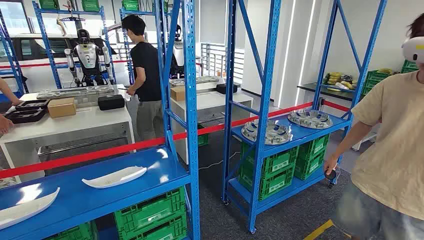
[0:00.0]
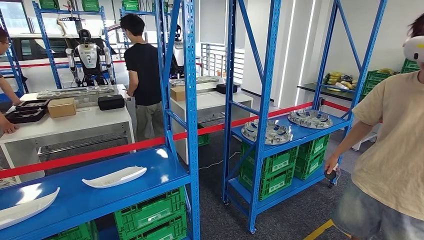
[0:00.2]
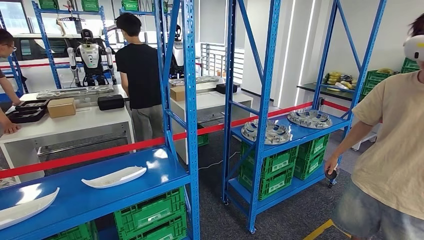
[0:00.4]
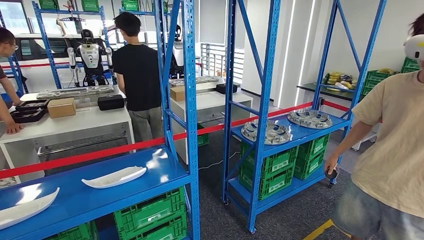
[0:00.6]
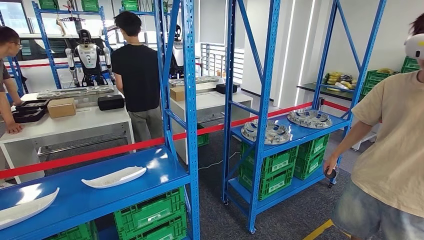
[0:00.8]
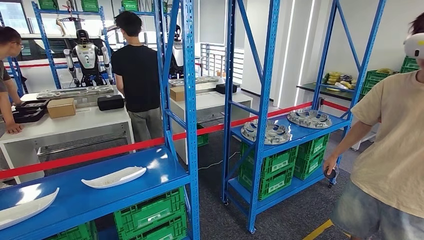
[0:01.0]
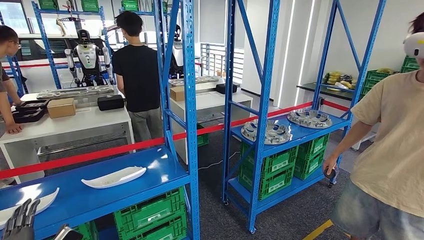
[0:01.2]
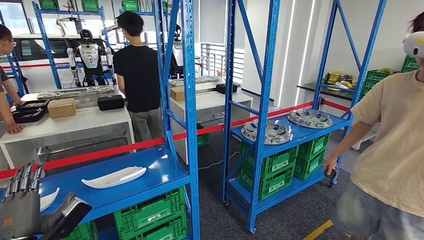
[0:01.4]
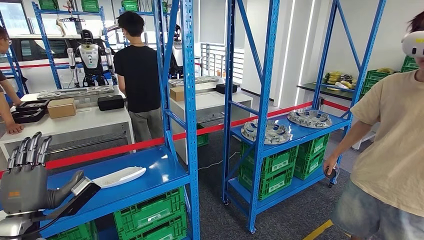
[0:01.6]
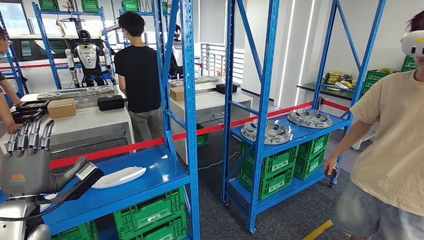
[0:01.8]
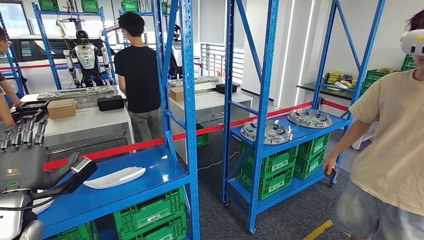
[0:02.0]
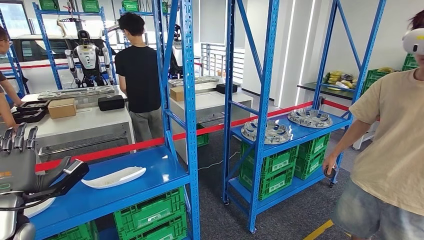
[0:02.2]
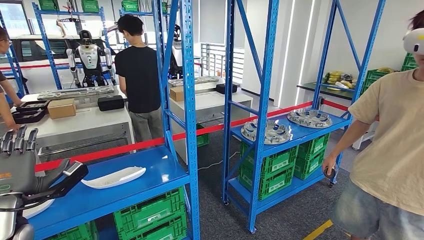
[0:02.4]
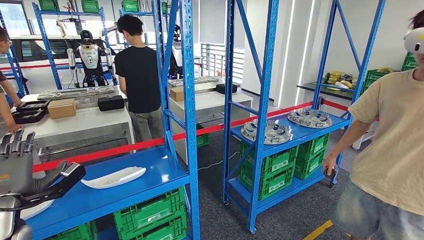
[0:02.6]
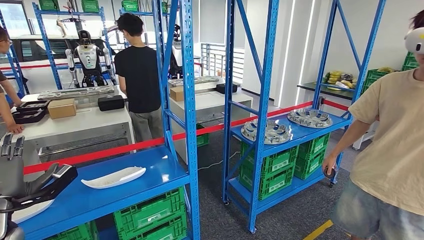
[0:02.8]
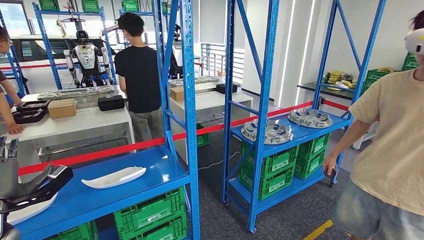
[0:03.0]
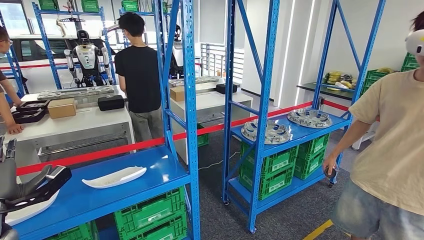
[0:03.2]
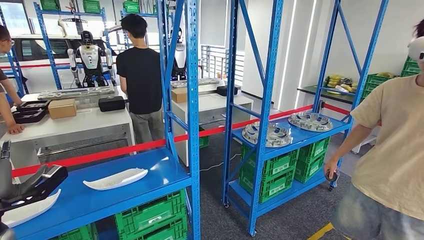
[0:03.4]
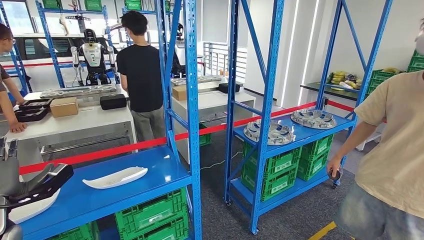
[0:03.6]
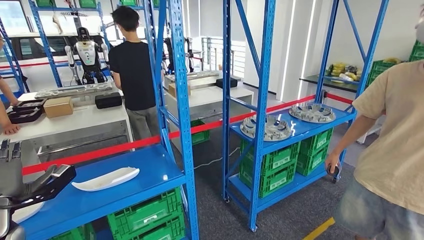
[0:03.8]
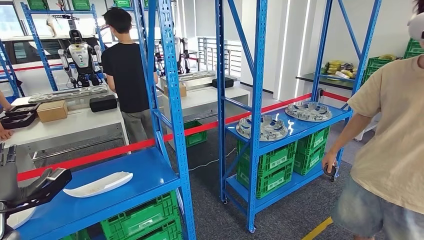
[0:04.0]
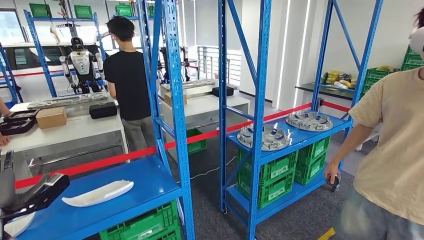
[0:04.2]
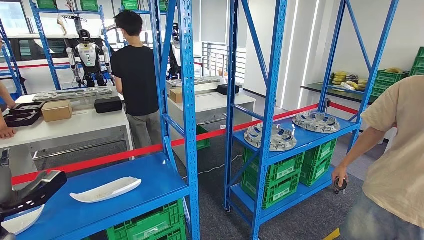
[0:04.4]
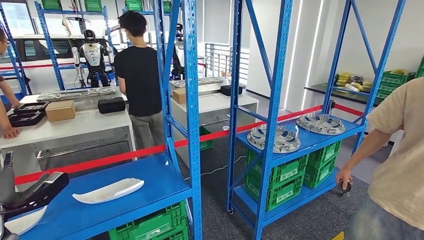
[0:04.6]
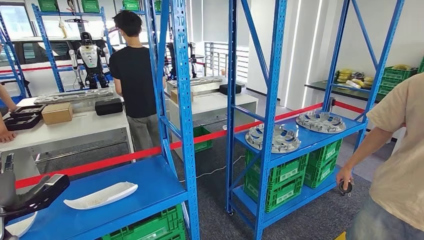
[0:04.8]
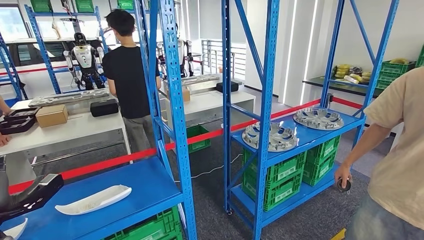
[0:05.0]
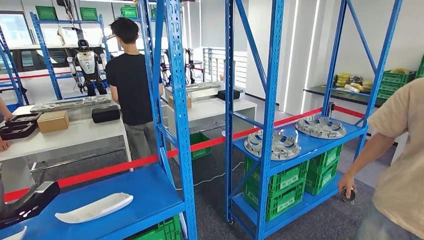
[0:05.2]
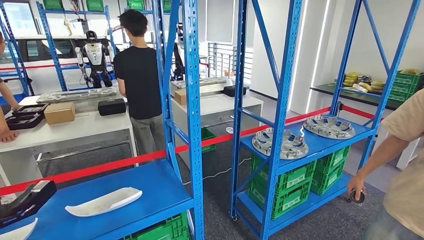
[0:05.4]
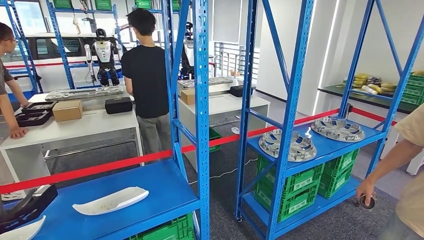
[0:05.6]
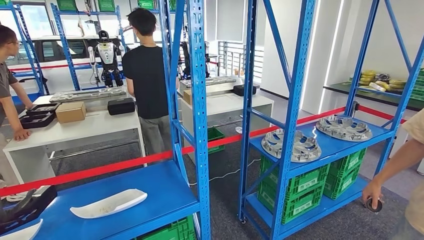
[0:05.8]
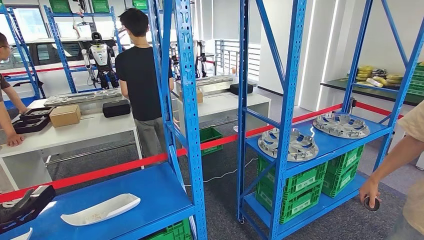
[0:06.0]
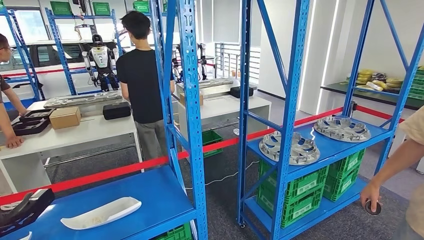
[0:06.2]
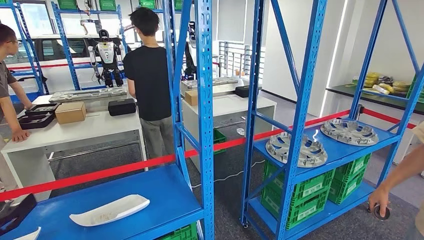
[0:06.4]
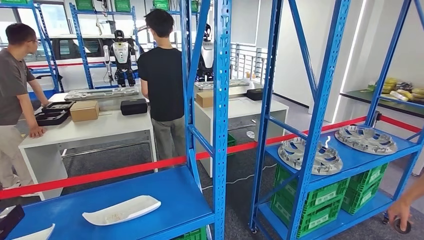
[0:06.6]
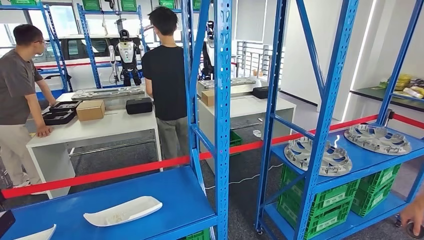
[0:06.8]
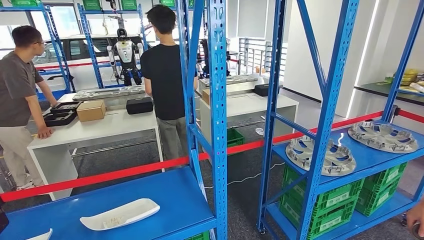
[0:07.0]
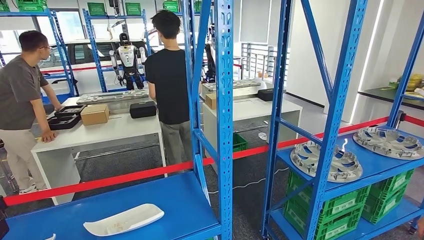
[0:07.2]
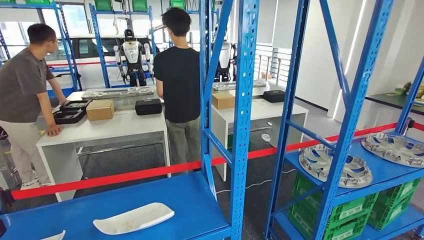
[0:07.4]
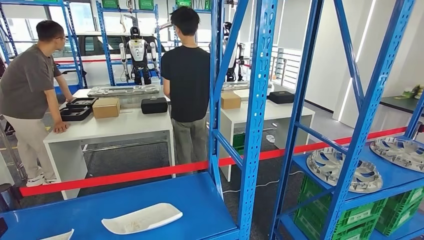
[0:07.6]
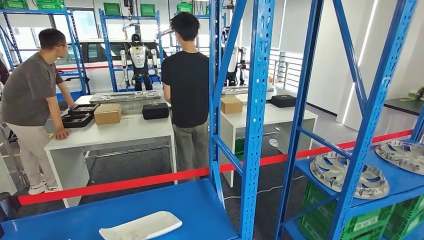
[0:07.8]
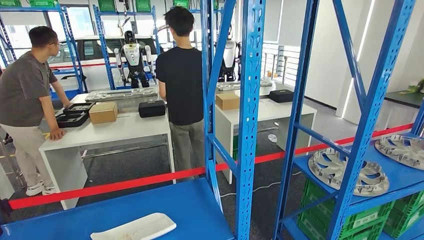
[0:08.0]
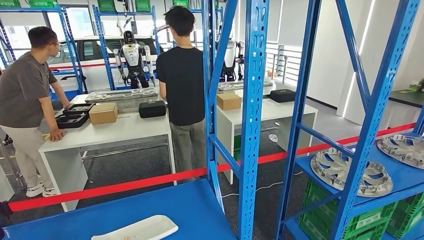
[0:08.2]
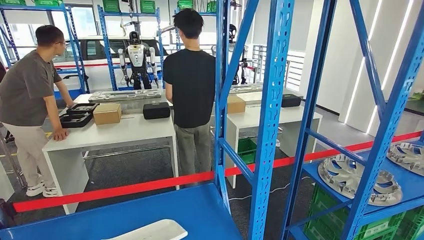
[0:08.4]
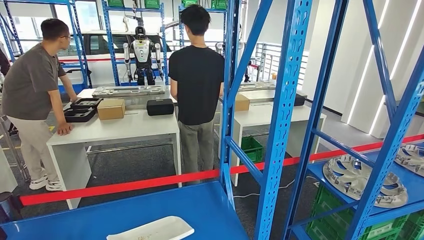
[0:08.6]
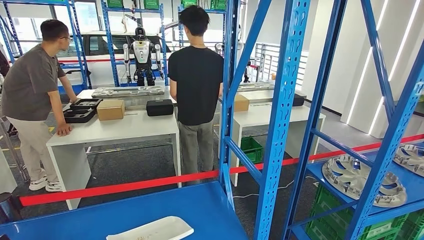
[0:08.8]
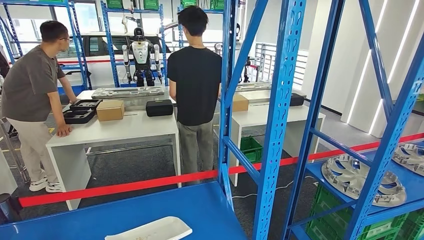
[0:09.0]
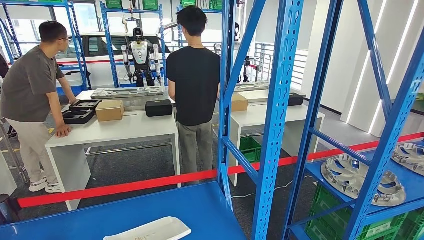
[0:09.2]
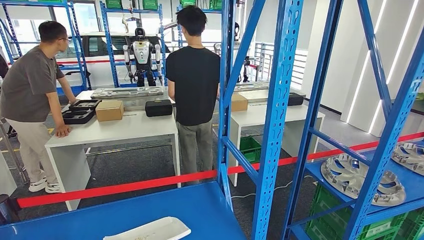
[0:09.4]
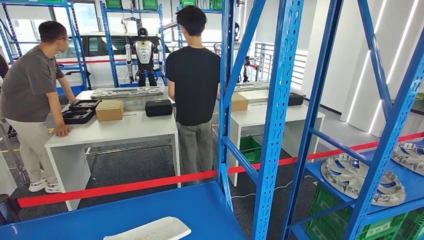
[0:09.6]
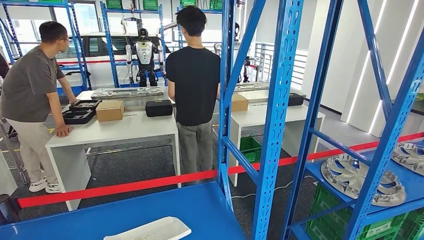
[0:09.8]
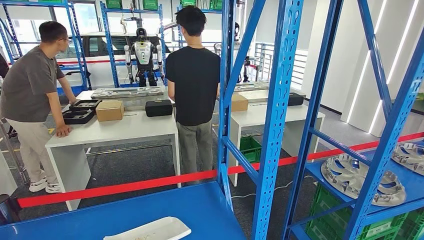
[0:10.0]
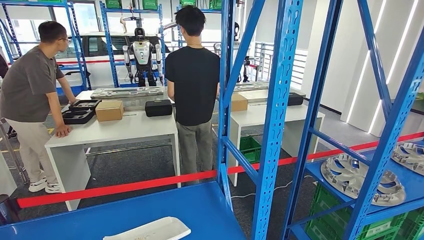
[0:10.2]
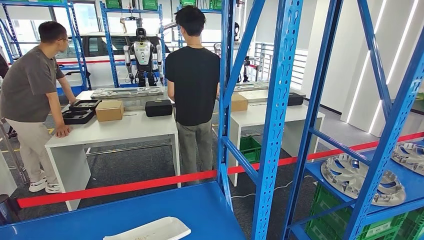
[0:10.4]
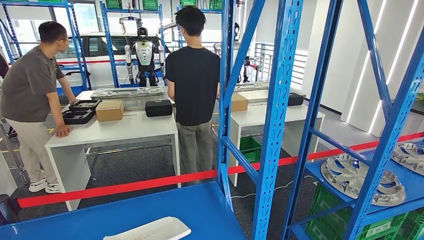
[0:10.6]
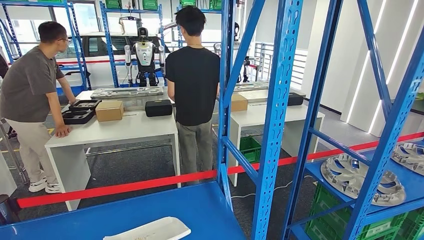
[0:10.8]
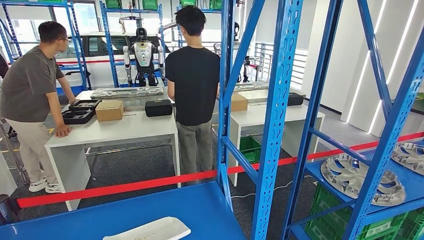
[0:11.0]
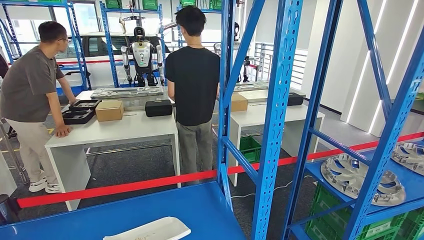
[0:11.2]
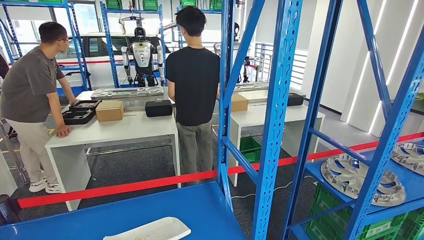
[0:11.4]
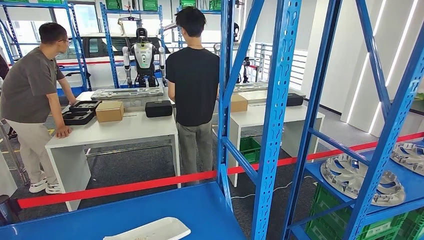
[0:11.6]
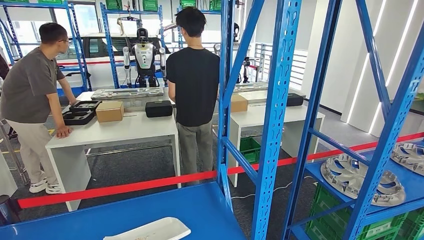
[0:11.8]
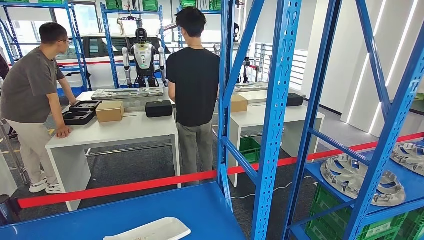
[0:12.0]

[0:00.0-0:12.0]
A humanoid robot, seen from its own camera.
0:01.6 to 0:03.0: The left hand moves to the left, some 5 cm.
0:09.0 to 0:10.4: The left hand shifts approximately 10 cm to the right and downward.
0:10.4 to 0:12.0: The hands make only small movements.

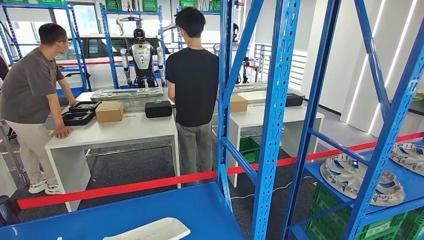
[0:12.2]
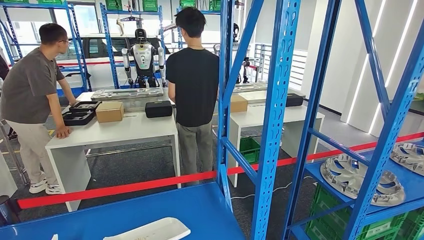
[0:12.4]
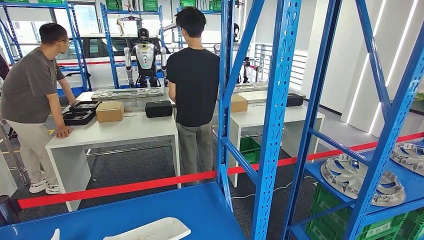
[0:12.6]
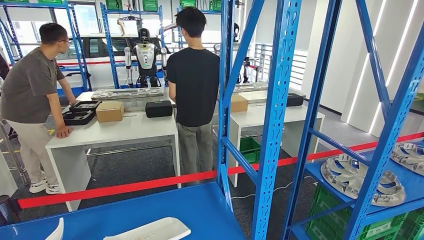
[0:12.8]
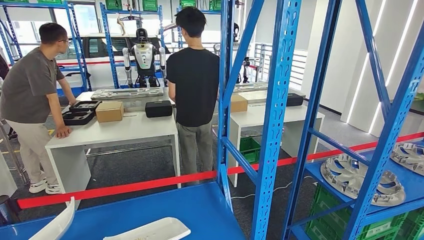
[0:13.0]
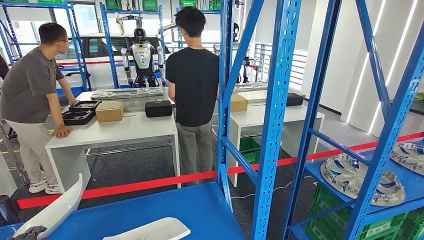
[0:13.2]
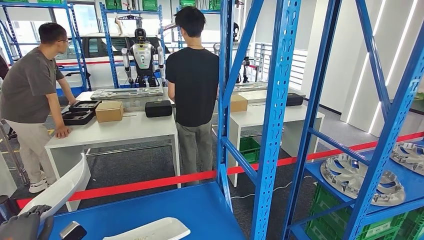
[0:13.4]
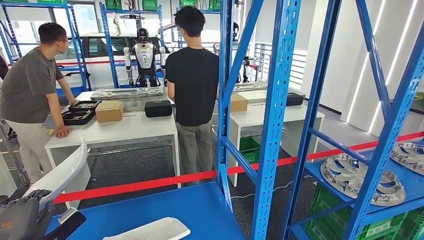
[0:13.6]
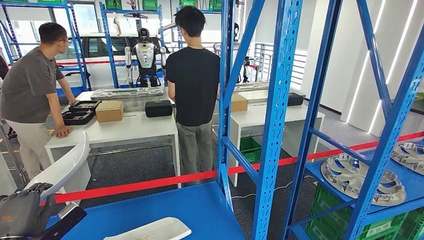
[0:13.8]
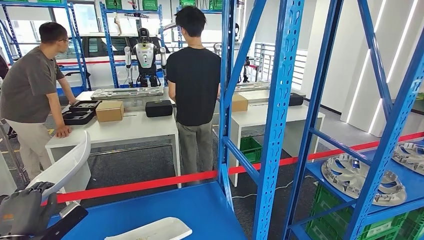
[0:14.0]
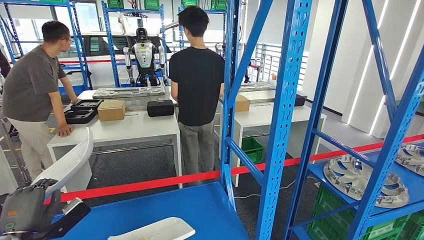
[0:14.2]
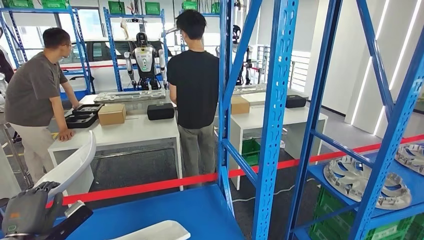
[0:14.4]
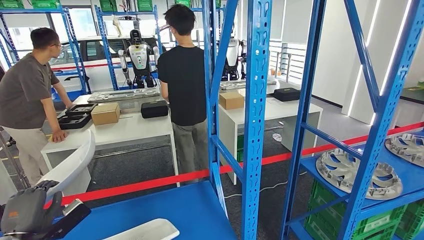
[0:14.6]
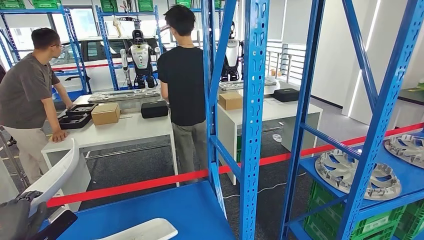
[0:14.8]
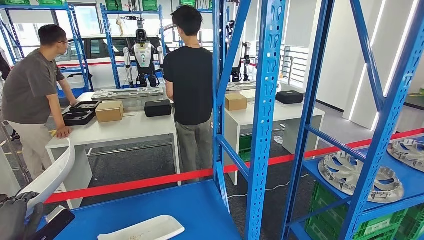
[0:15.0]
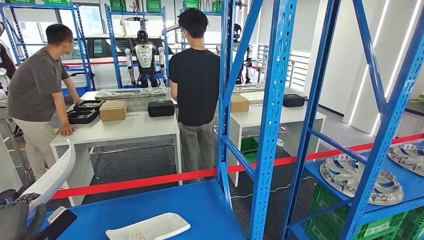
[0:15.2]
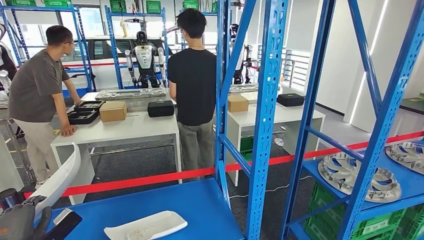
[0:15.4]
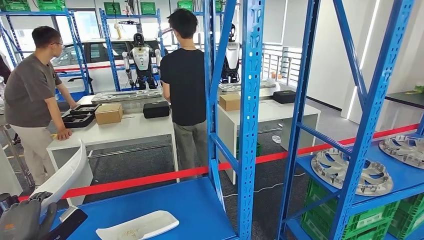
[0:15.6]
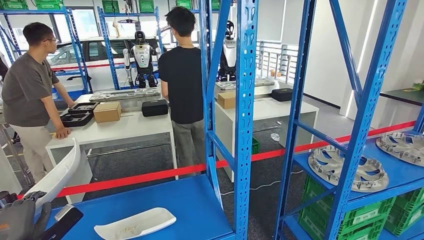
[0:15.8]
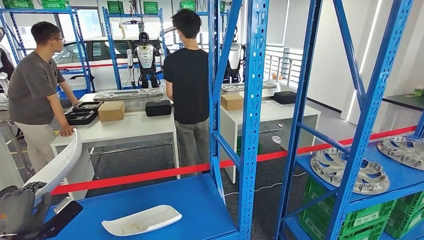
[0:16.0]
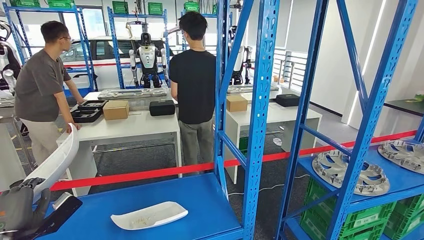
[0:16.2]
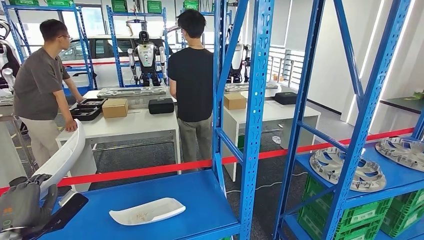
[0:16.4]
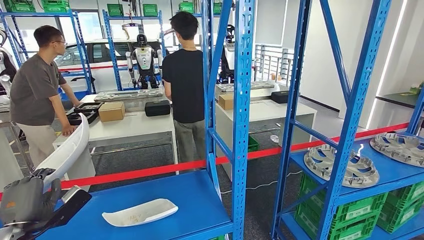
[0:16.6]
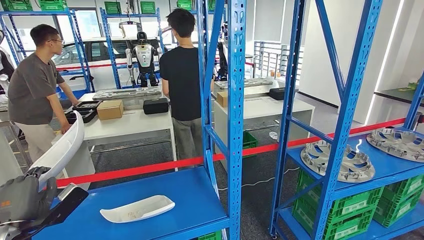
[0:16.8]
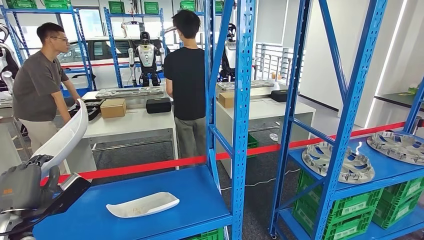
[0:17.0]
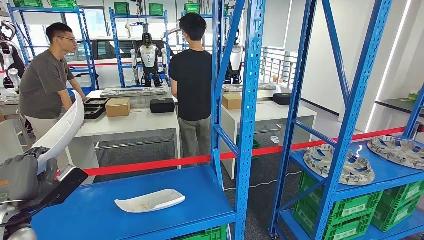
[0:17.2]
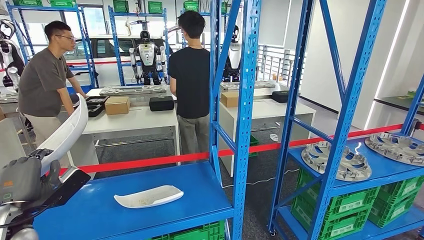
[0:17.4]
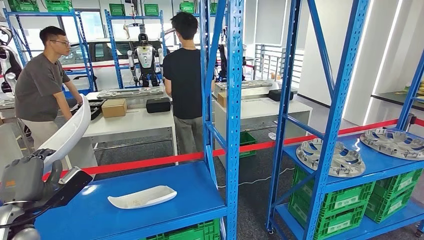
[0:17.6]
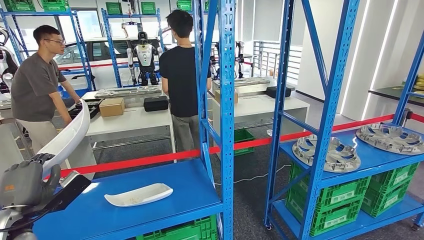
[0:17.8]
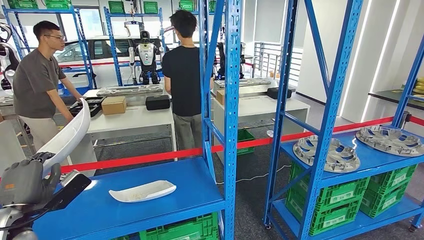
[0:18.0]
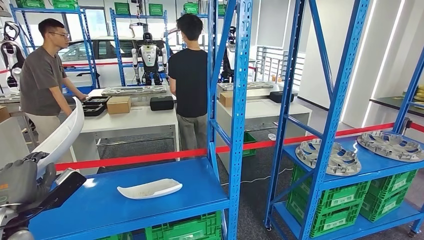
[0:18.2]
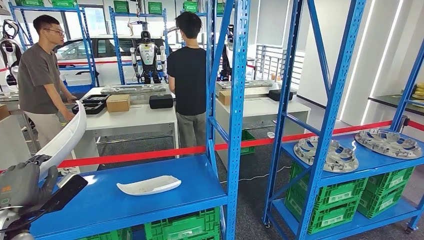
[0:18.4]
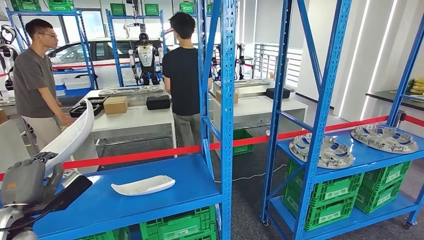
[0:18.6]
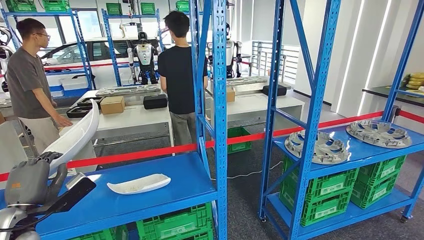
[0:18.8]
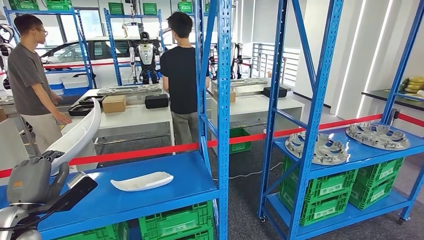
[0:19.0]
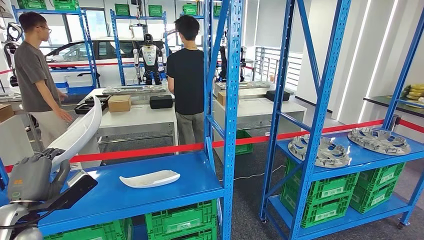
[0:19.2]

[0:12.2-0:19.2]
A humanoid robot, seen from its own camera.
0:12.2 to 0:13.6: The left hand shifts approximately 20 cm upward, forward and to the right.
